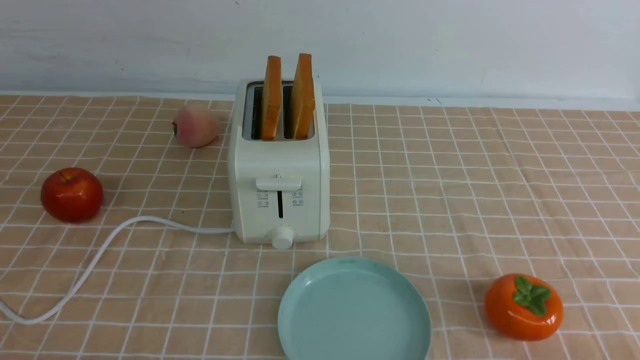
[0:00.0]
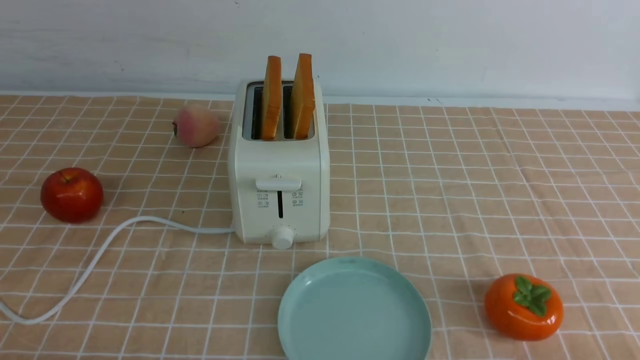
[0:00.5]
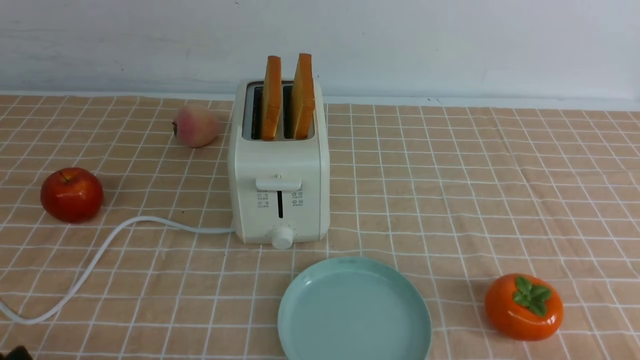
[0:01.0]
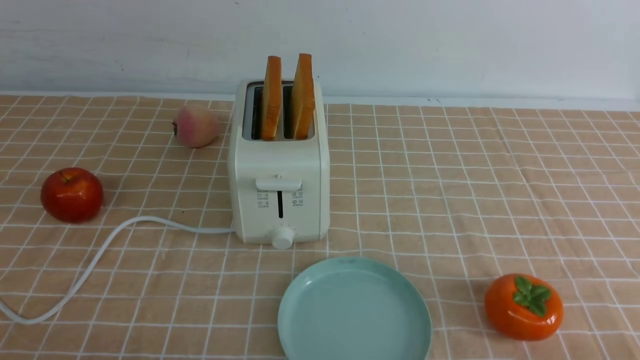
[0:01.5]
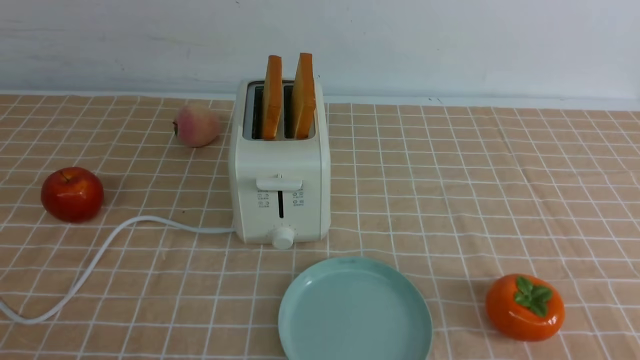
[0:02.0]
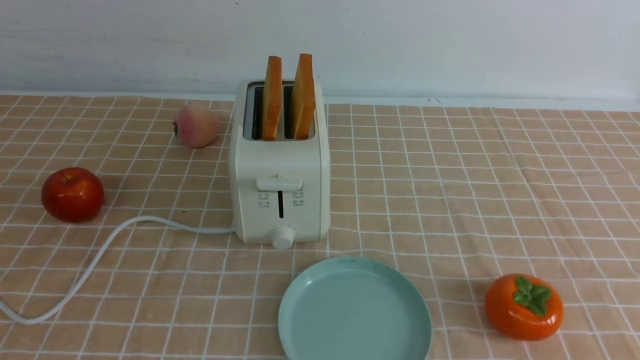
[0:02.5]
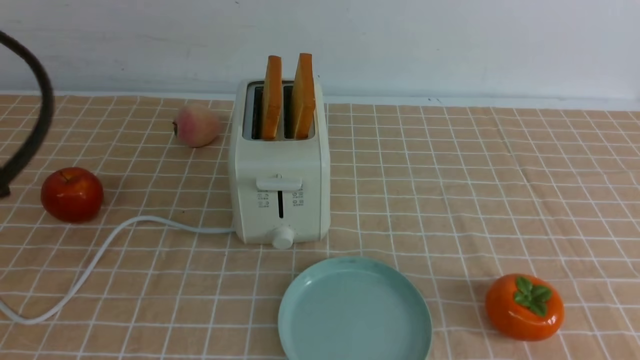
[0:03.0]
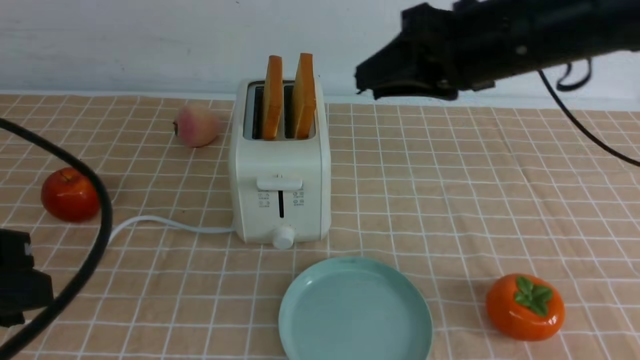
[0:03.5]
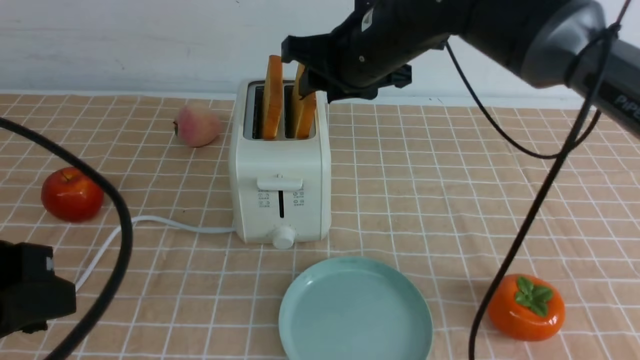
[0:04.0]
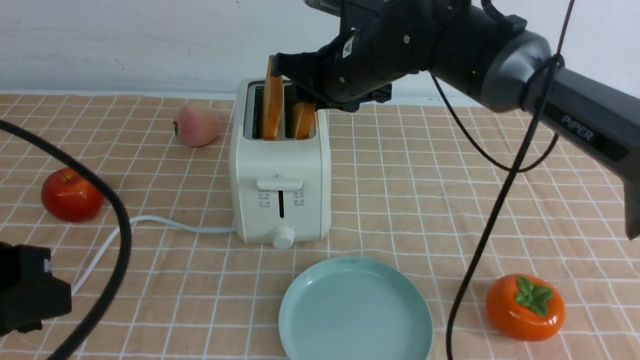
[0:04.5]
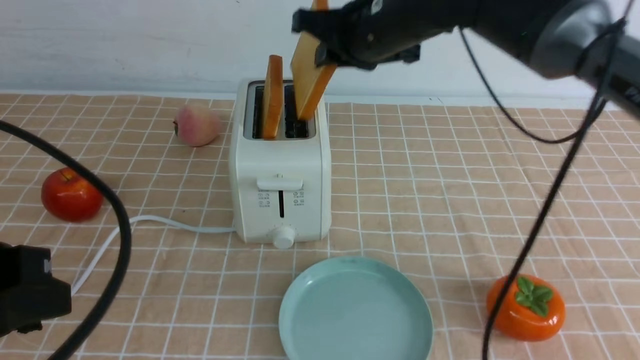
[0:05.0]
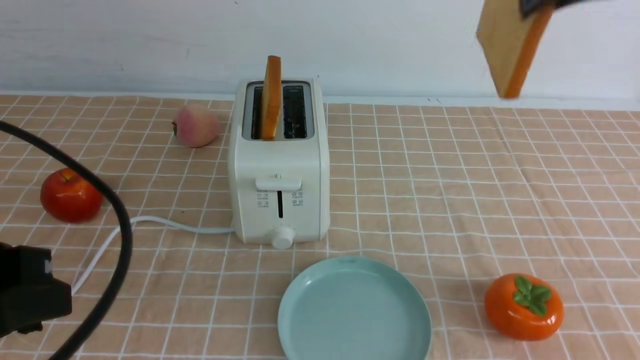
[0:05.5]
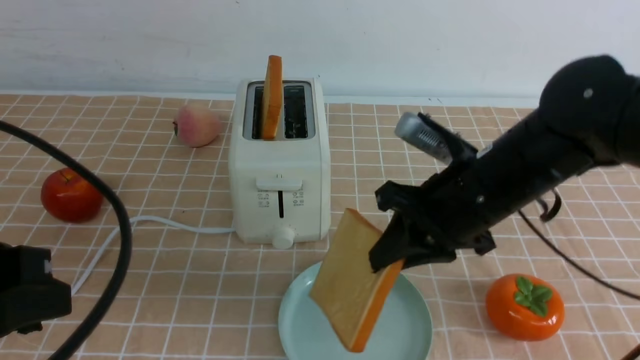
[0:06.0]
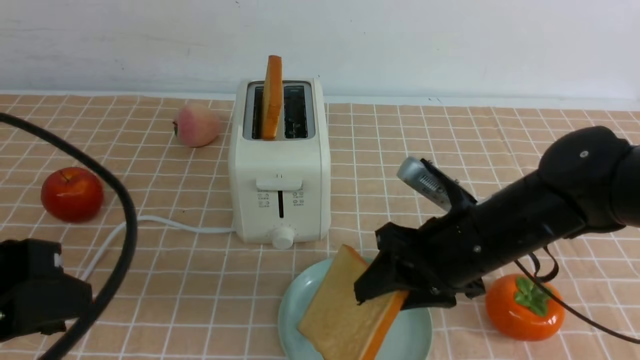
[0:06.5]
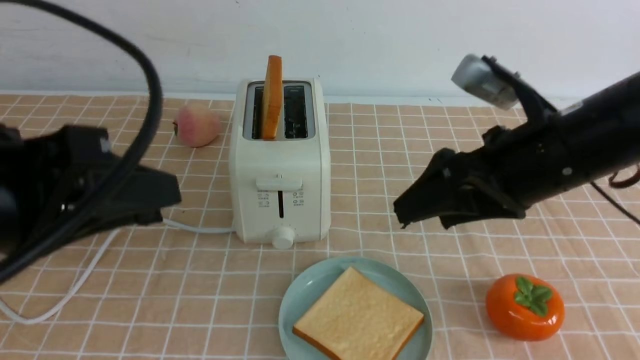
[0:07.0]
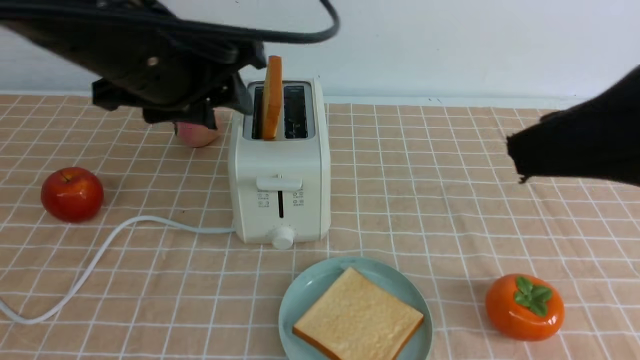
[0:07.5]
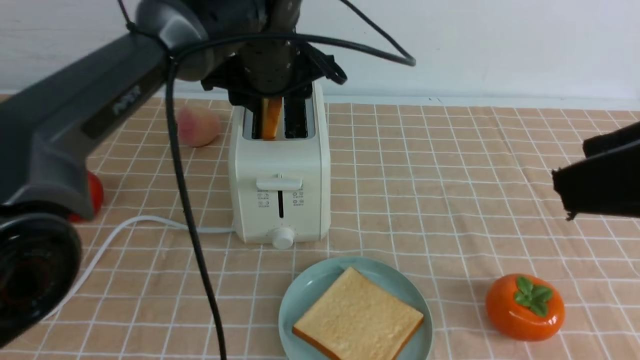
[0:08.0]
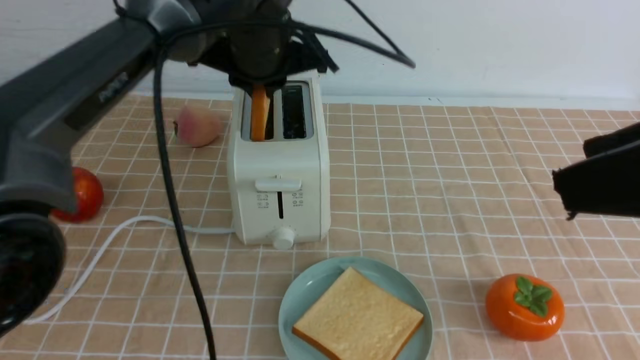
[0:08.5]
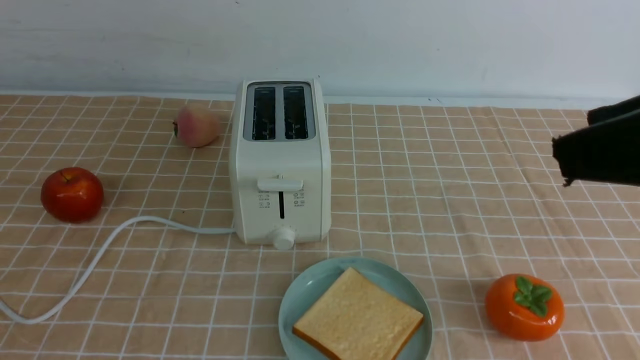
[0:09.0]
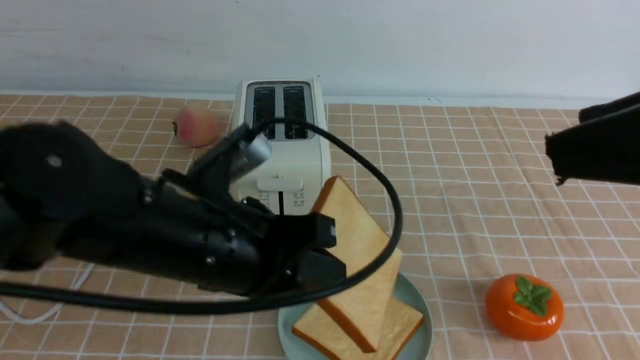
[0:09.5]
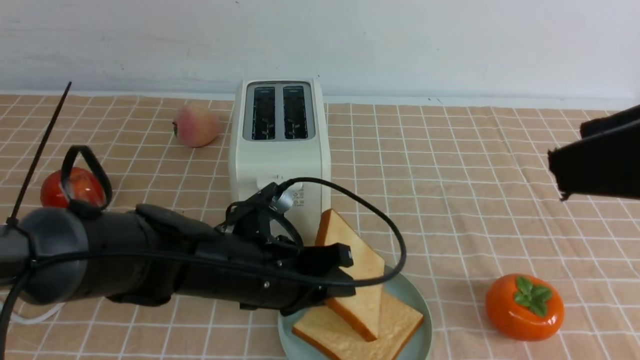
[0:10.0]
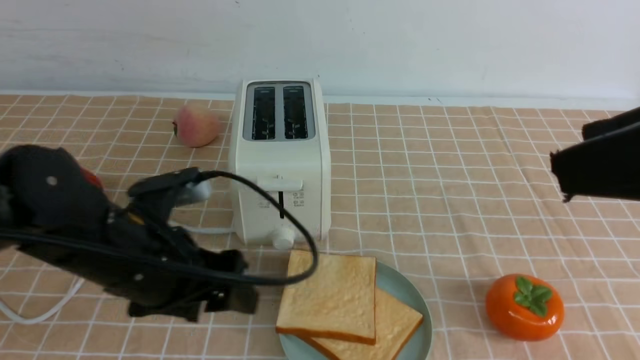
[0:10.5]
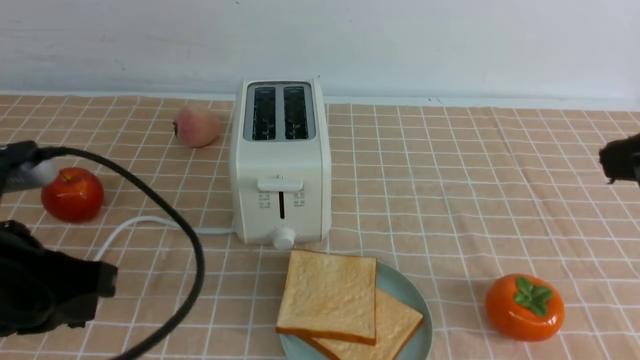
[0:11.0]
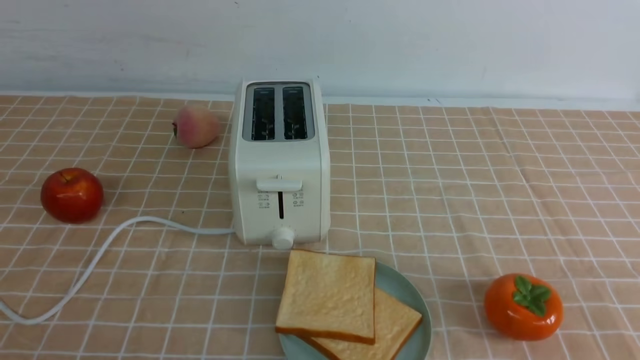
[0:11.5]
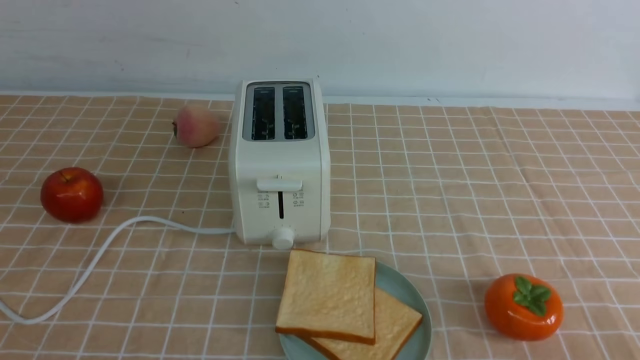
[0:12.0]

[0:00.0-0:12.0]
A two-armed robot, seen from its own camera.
Task of the whole recording: take toasted bread from bread machine on light coffee tablecloth place on plate.
Step, 0:00.0 to 0:04.5: use the right arm to take out a slice of bread.
Step, 0:05.5 to 0:06.5: use the right arm to put a slice of bread into the plate.
Step, 0:07.0 to 0:08.5: use the left arm to take out a slice of bread.
Step, 0:09.0 to 0:10.0: use the left arm to put a slice of bread into the empty plate.
0:02.0 to 0:04.0: The right gripper moves forward and to the left, about 50 cm, while the left gripper heads forward, covering approximately 10 cm, and reaches about 15 cm upward, then returns.
0:04.0 to 0:06.0: The right gripper heads backward, to the right and downward, covering some 15 cm, and closes.
0:06.0 to 0:08.0: The left gripper shifts about 35 cm forward and to the right; the right gripper heads upward, backward and to the right, covering approximately 25 cm, and opens.
0:08.0 to 0:10.0: The left gripper shifts about 20 cm backward and downward, and closes, then reopens.
0:10.0 to 0:12.0: The left gripper shifts approximately 40 cm backward, to the left and upward, and closes up, while the right gripper heads downward, backward and to the right, covering about 25 cm, and closes up.
